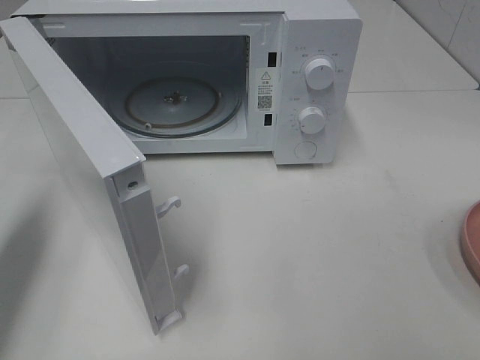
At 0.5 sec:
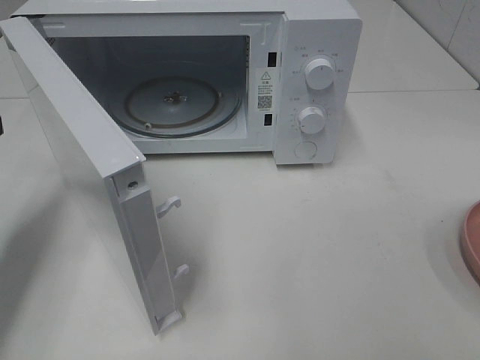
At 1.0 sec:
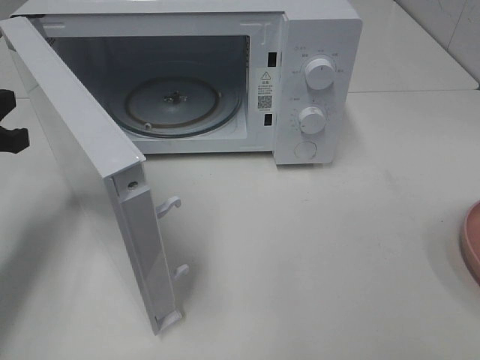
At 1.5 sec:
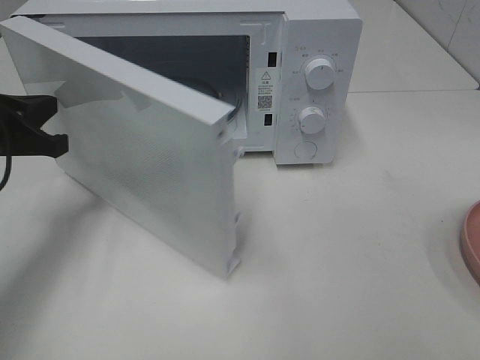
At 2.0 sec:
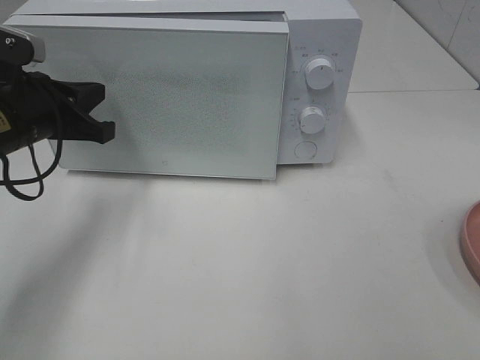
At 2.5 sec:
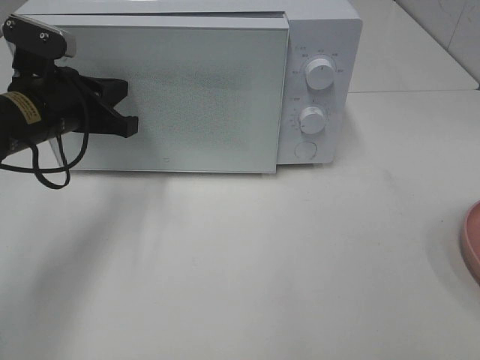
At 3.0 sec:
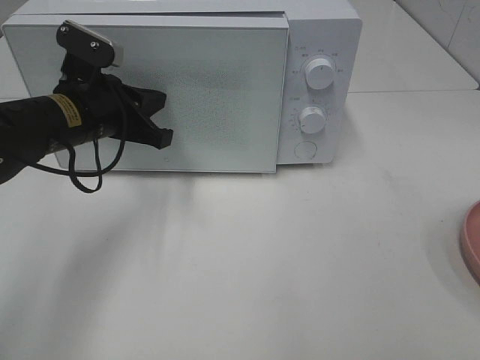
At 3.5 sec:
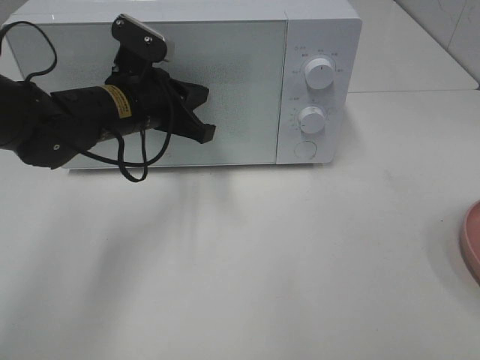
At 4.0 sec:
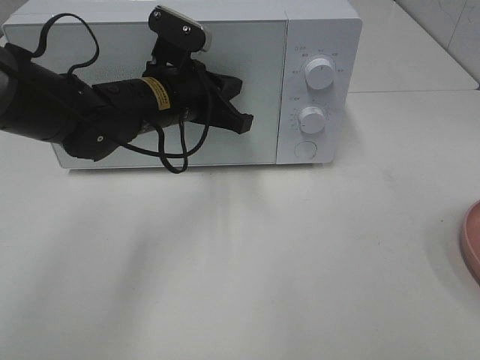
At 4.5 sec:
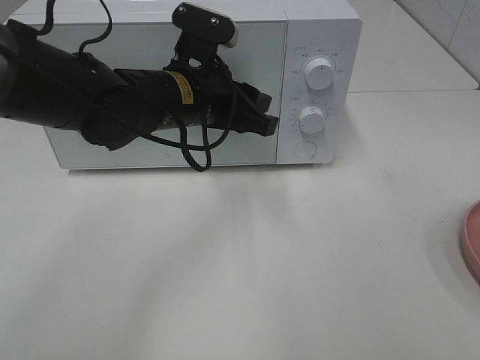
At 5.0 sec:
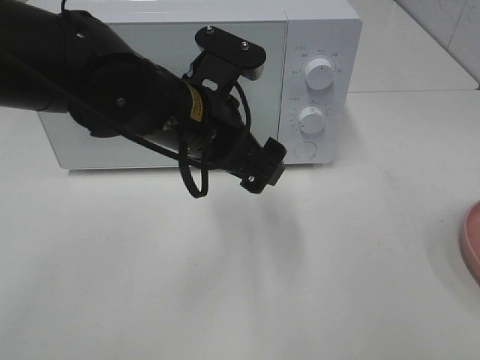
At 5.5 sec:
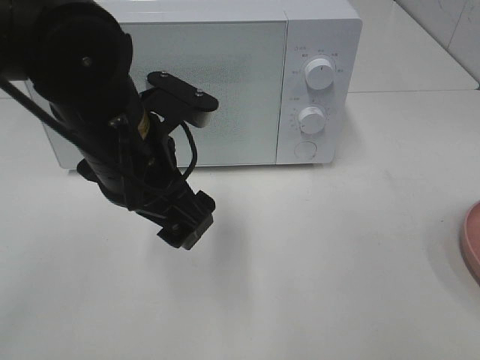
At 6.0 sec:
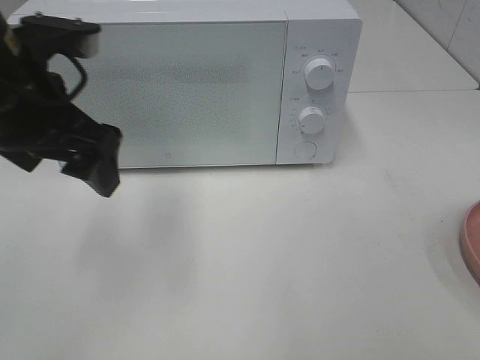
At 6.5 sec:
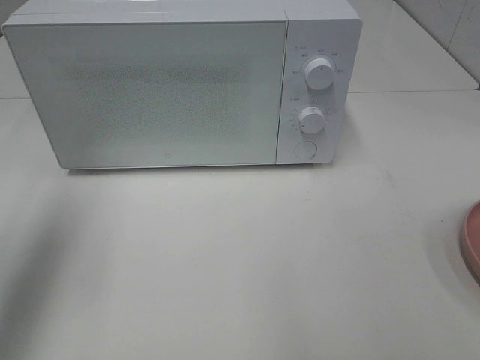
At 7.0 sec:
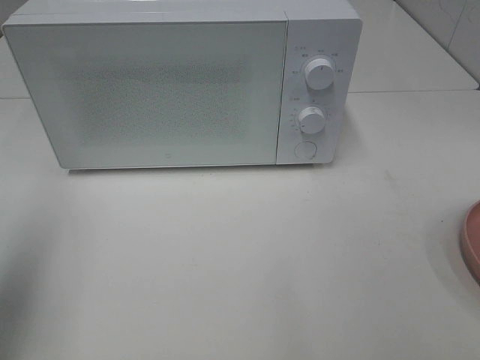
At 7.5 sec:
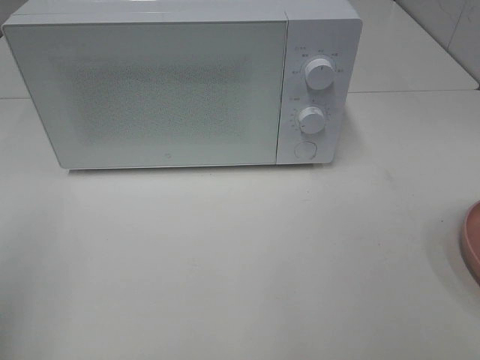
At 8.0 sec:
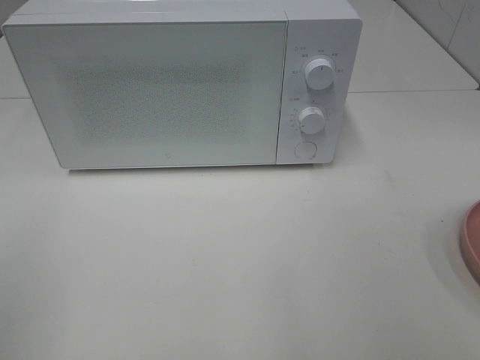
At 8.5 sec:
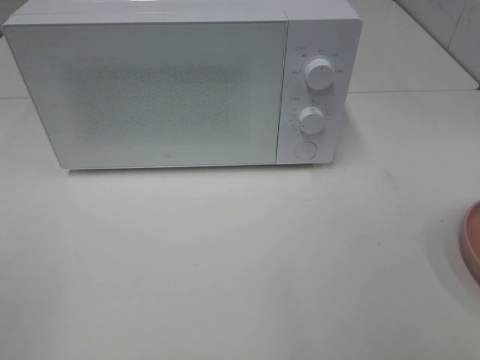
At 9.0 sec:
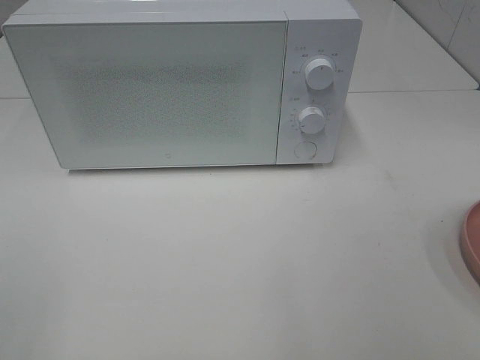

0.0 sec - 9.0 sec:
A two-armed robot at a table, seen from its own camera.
Task of the whole recording: Heat the burger.
Step, 0.0 sec - 4.5 sec: Left hand: close the microwave door.
0.0 sec - 2.0 sec: The left gripper travels to the right, forward and downward by about 15 cm.
2.0 sec - 4.5 sec: The left gripper is displaced to the right by some 20 cm, and opens its fingers.
4.5 sec - 7.0 sec: The left gripper heads to the left, backward and upward, covering roughly 35 cm, and opens up.
7.0 sec - 9.0 sec: The left gripper heads backward, covering about 15 cm.

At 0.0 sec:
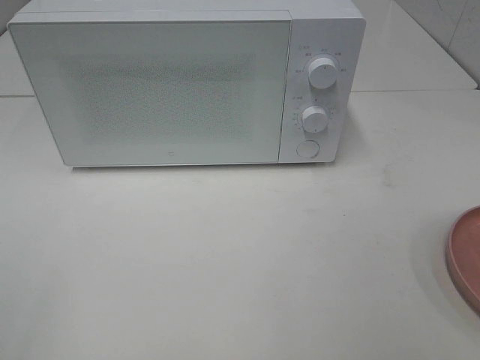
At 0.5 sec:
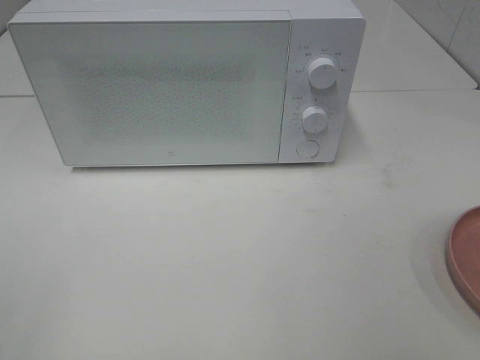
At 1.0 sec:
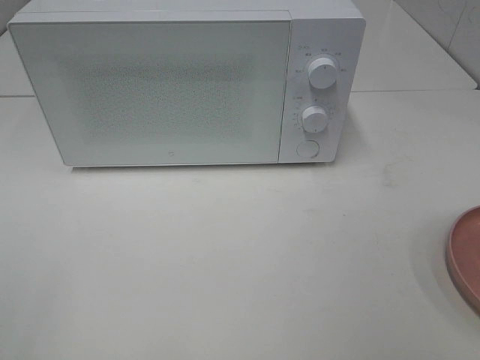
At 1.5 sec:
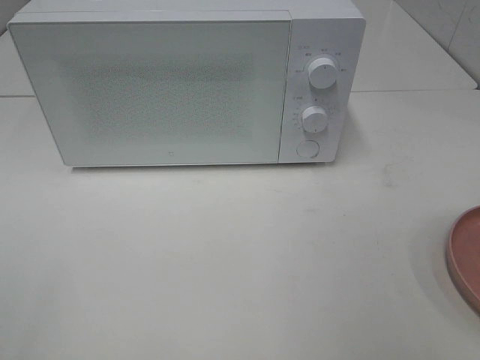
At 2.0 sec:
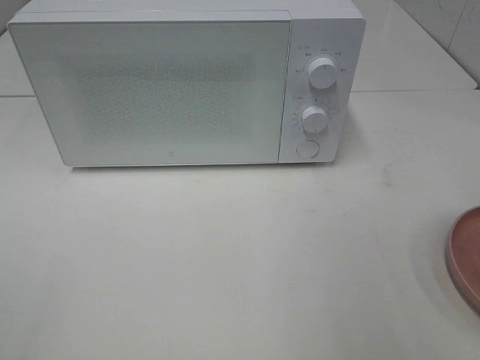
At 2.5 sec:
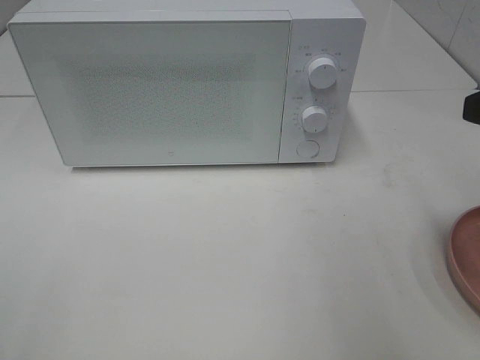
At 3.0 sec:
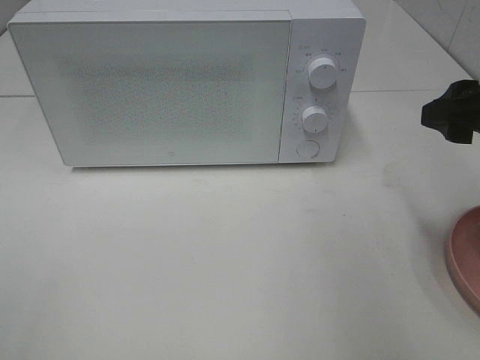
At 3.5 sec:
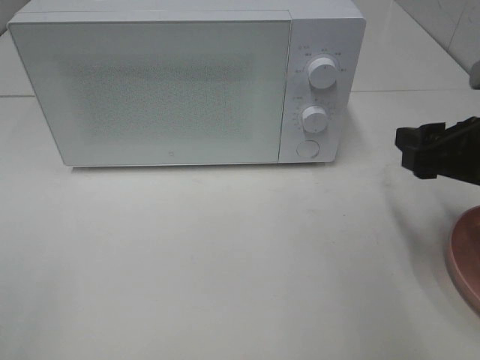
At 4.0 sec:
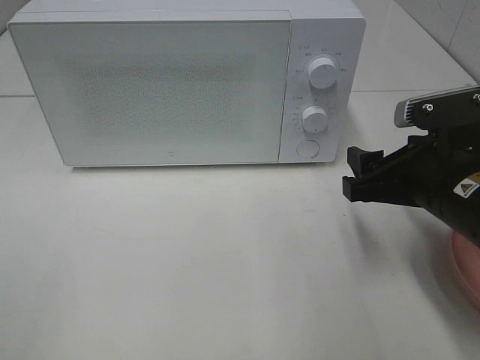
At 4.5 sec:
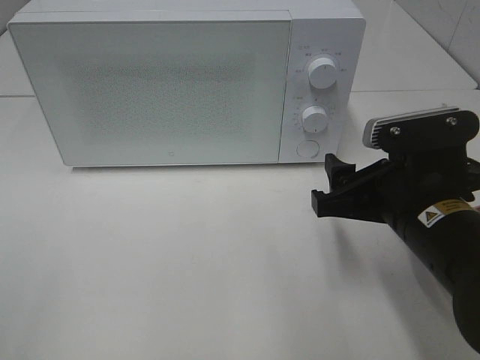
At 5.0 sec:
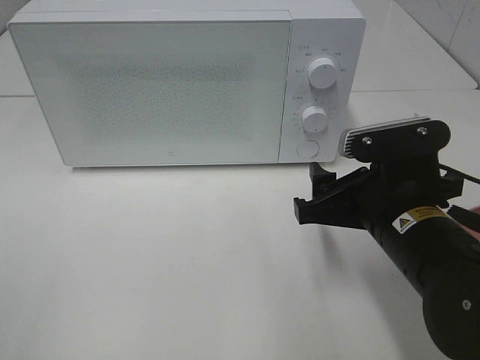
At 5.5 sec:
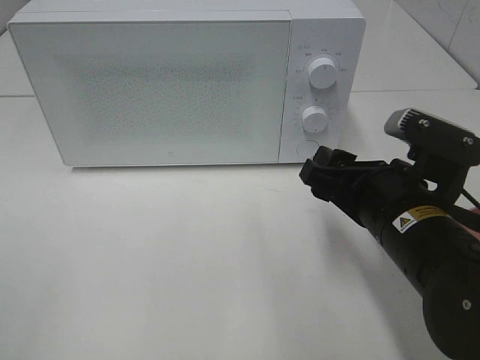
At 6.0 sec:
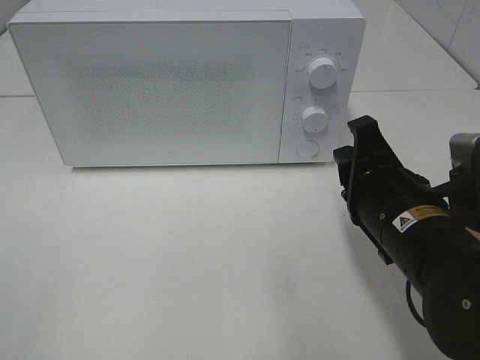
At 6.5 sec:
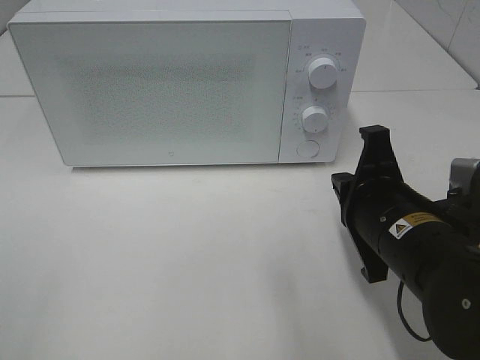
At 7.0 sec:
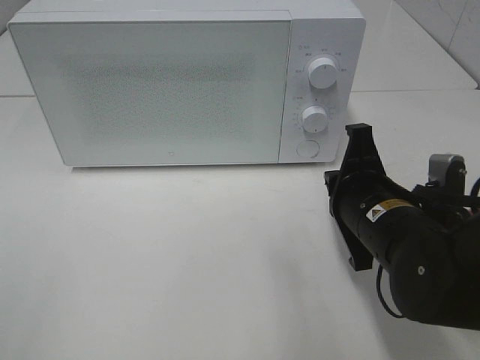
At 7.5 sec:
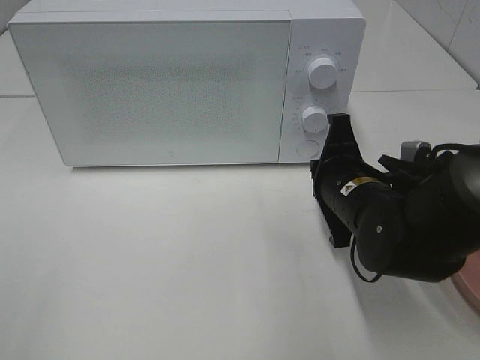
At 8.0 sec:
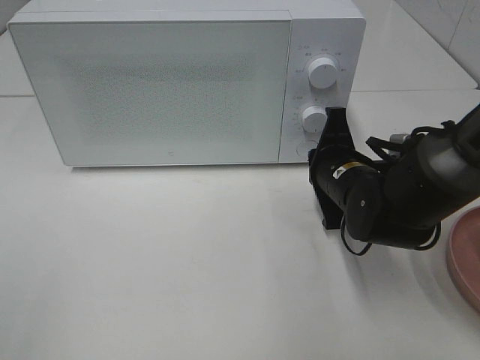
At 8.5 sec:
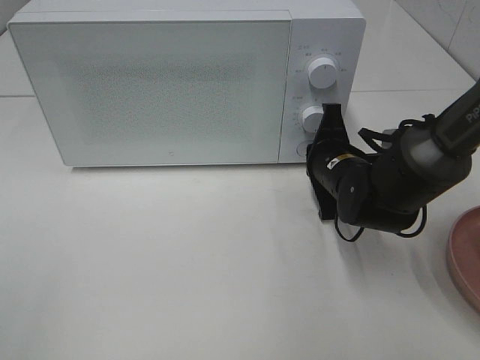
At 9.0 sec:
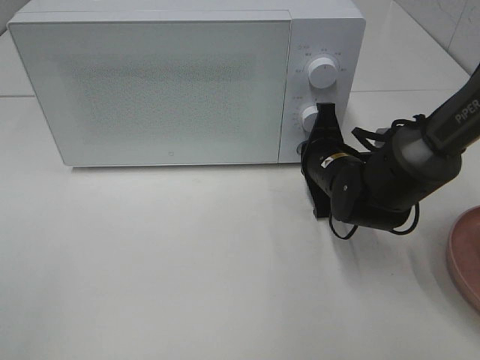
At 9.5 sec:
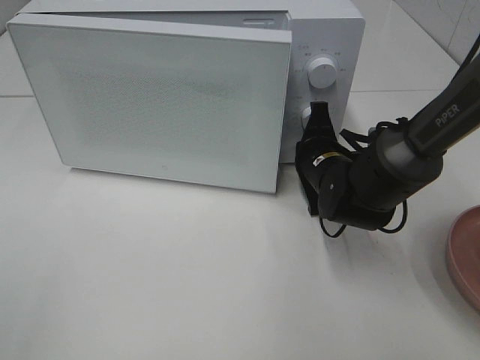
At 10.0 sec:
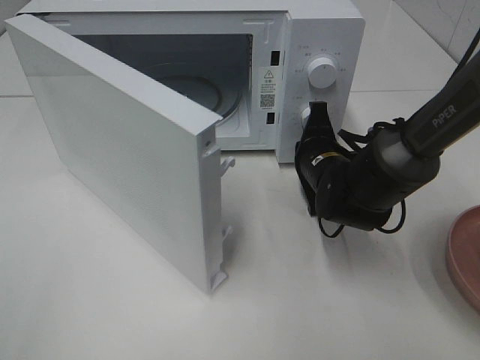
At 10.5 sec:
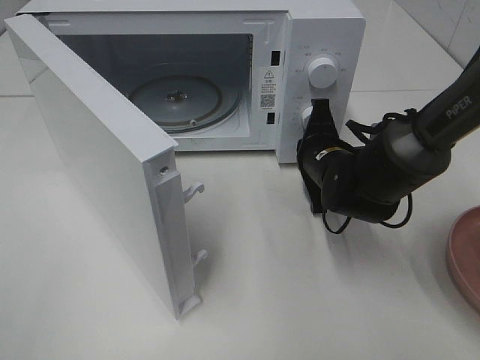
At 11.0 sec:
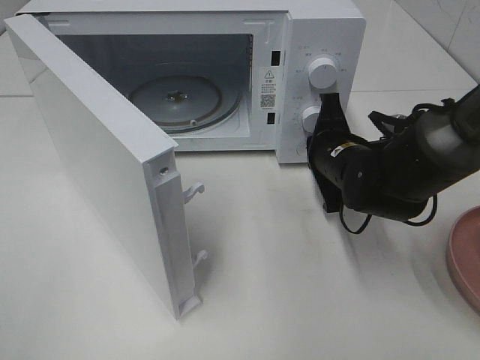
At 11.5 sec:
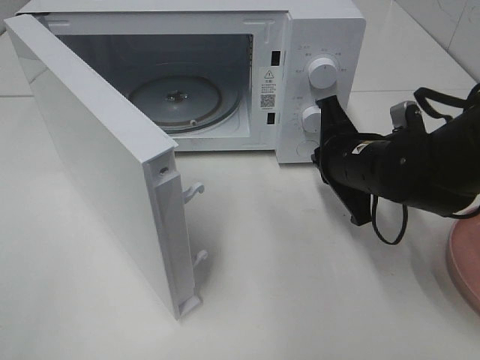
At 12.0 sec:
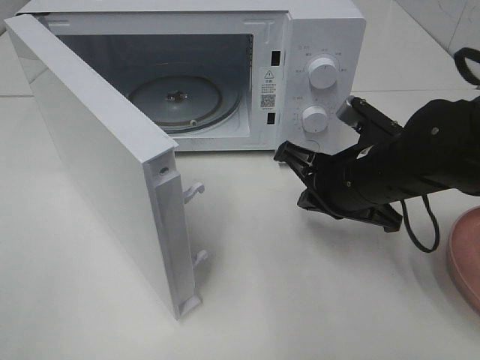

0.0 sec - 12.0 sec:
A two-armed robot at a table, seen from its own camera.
Task of the whole recording: Heat the burger.
Step, 0.0 sec - 11.0 sec: Right hand: press the switch.
2.0 sec - 4.0 sec: The right gripper heads downward, forward and to the left, covering roughly 20 cm.
4.0 sec - 6.0 sec: The right gripper moves about 5 cm, and closes up.
6.0 sec - 8.0 sec: The right gripper heads forward and downward, covering approximately 15 cm, and closes its fingers.
10.0 sec - 12.0 sec: The right gripper is displaced backward and upward by roughly 10 cm.

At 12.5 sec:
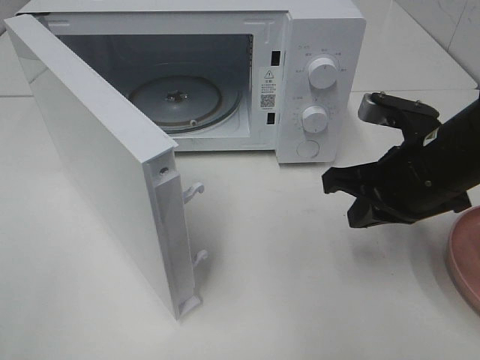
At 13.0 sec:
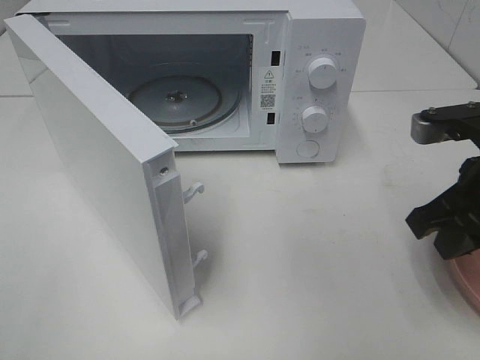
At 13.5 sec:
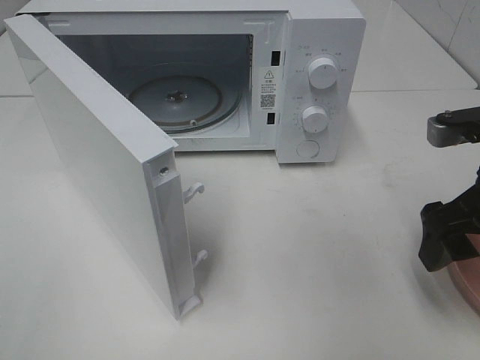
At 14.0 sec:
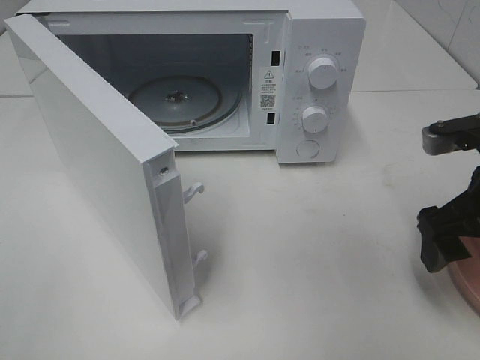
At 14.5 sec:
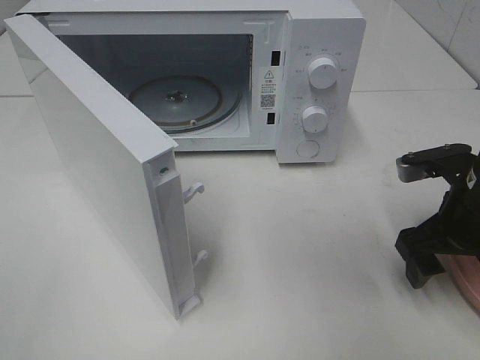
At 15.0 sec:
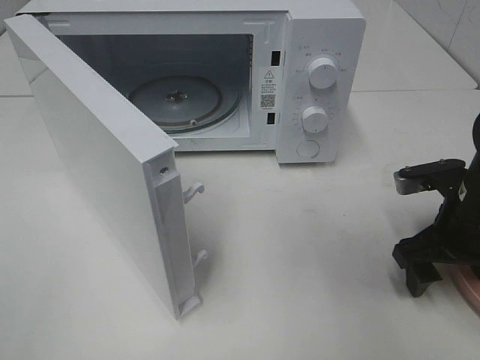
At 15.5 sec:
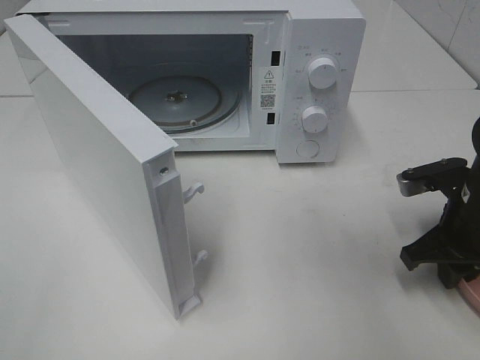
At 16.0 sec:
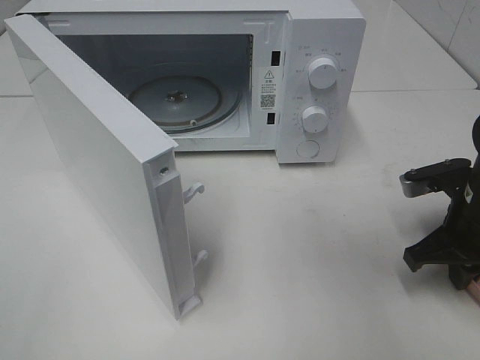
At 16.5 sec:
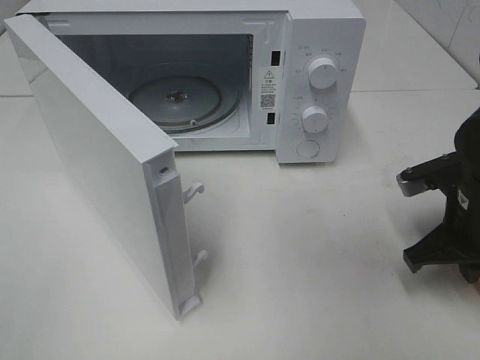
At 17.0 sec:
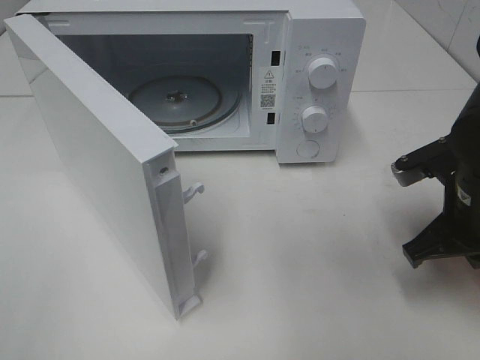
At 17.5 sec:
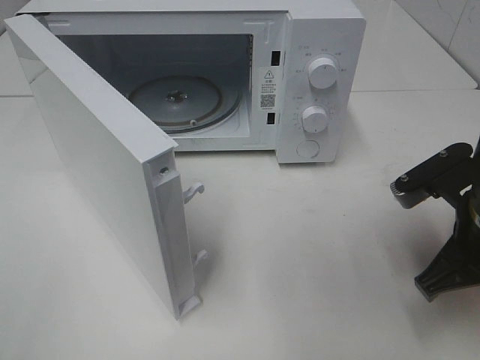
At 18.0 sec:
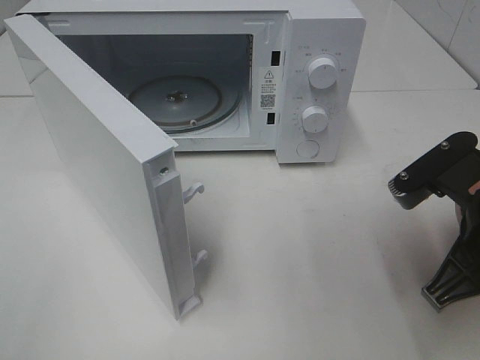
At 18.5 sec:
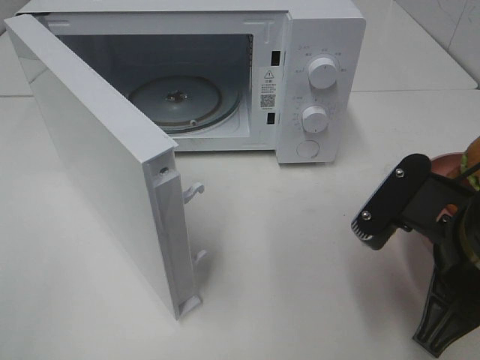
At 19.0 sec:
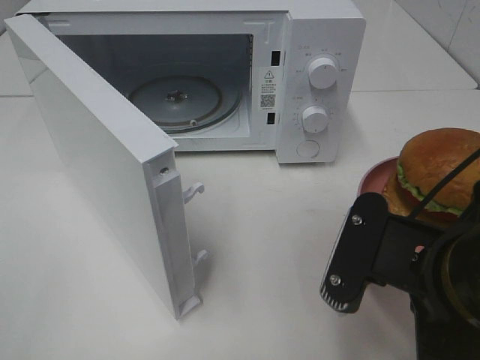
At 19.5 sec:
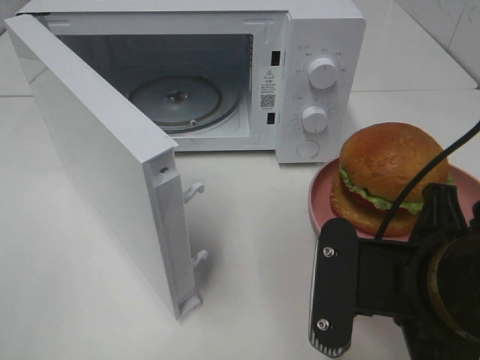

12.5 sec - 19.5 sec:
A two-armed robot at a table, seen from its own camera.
Task of the whole recording: Heat the burger.
Step, 12.5 sec - 15.5 sec: Right hand: grab the plate with the hamburger.
12.5 sec - 14.5 sec: The right gripper moves to the right, roughly 5 cm, and opens.
14.5 sec - 16.0 sec: The right gripper closes its fingers.
16.0 sec - 17.5 sec: The right gripper heads backward and upward, covering some 10 cm.
17.5 sec - 19.5 sec: The right gripper shifts some 10 cm to the left and backward.
